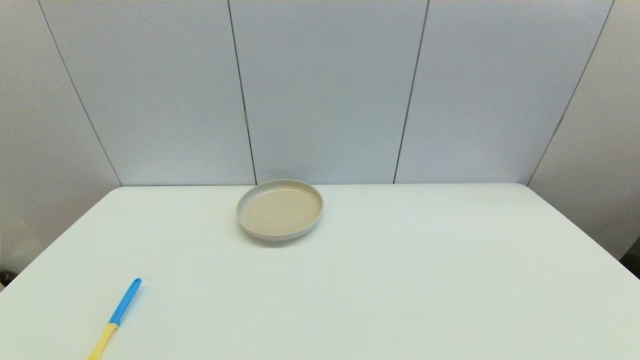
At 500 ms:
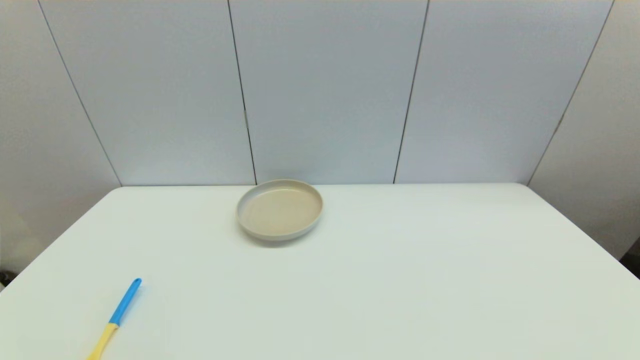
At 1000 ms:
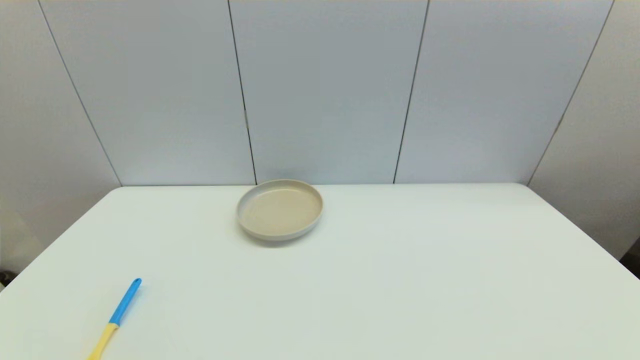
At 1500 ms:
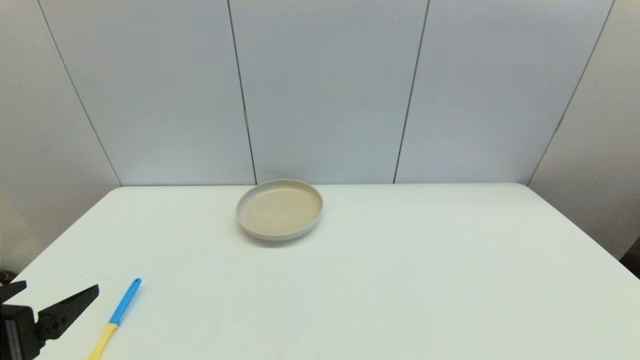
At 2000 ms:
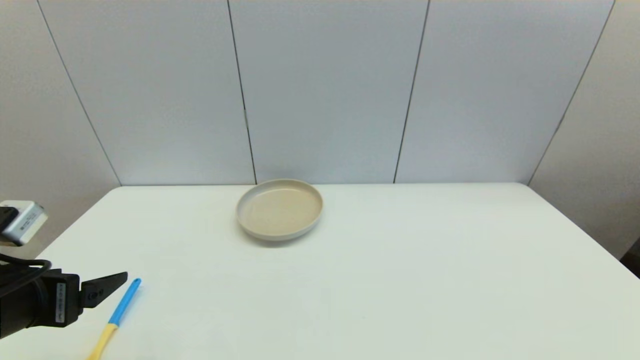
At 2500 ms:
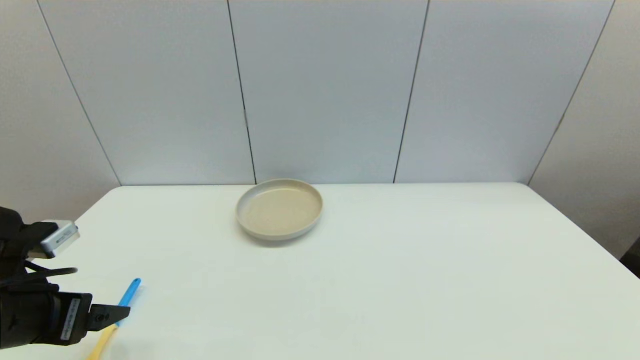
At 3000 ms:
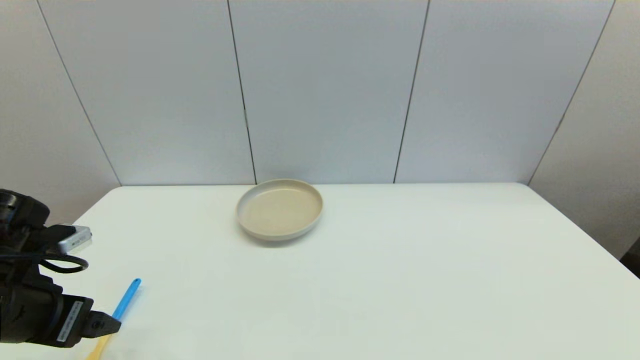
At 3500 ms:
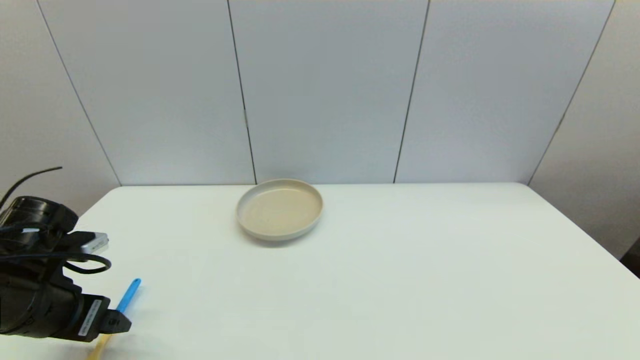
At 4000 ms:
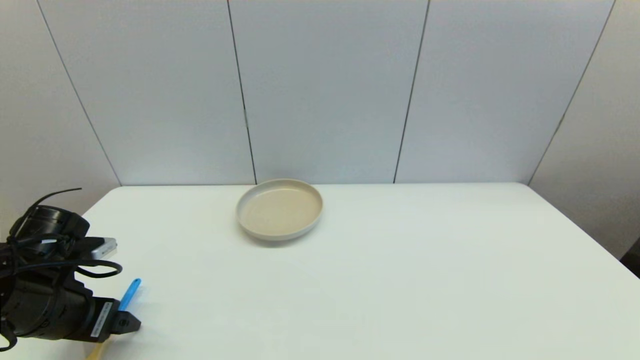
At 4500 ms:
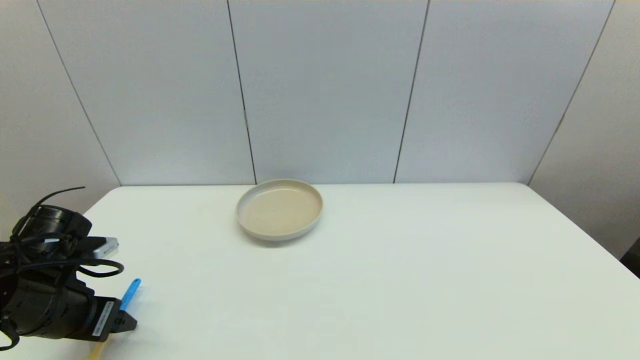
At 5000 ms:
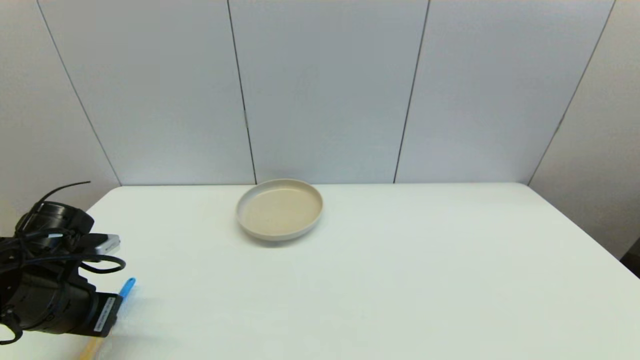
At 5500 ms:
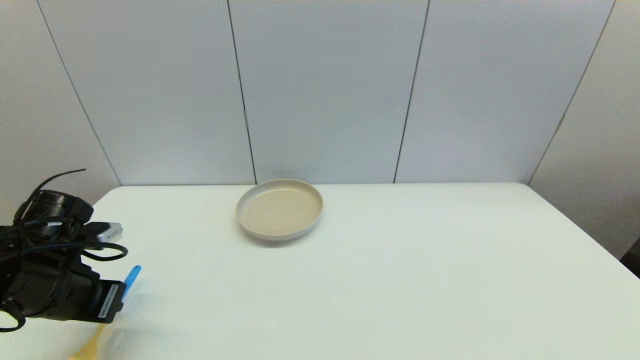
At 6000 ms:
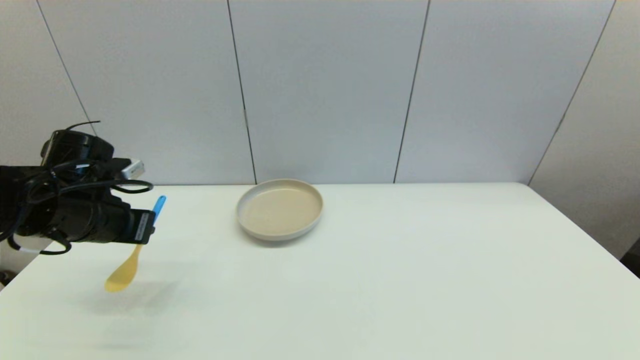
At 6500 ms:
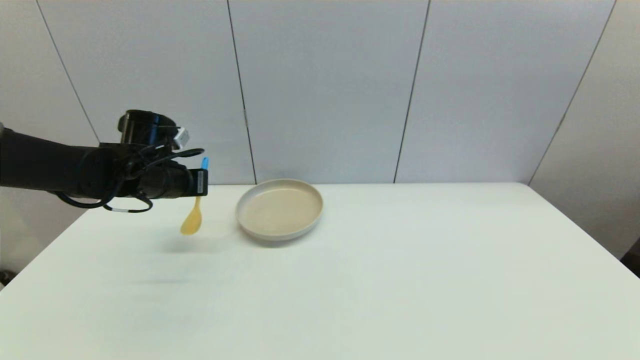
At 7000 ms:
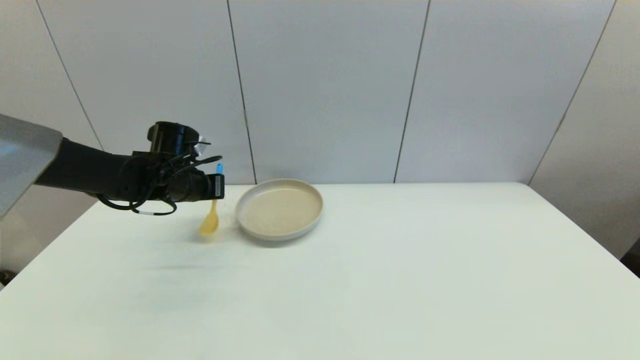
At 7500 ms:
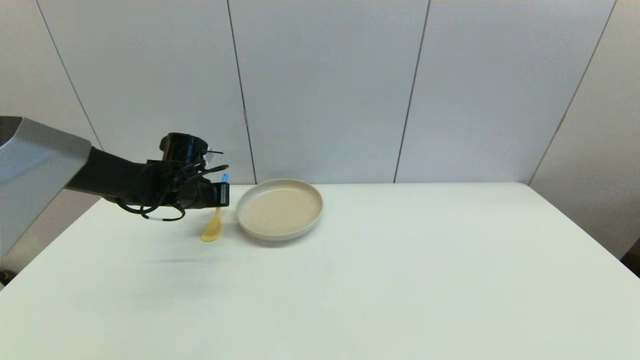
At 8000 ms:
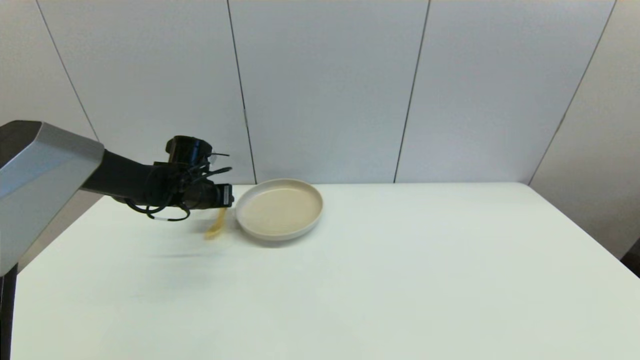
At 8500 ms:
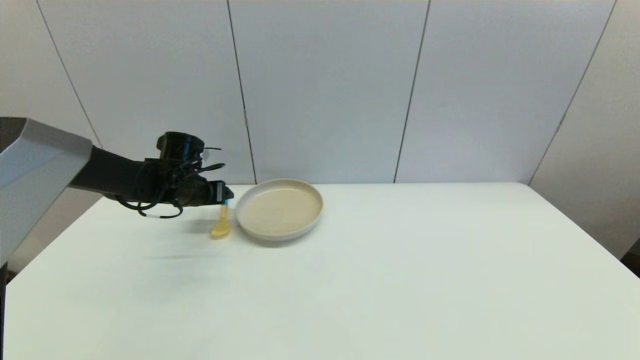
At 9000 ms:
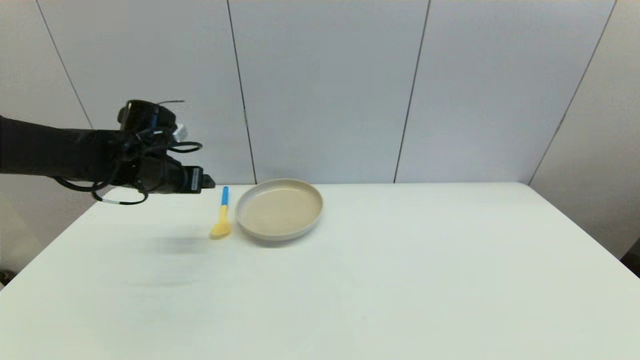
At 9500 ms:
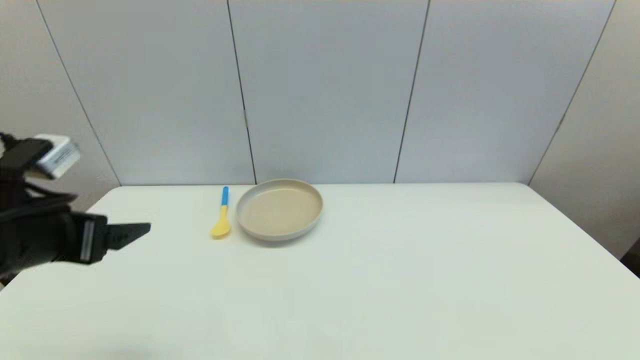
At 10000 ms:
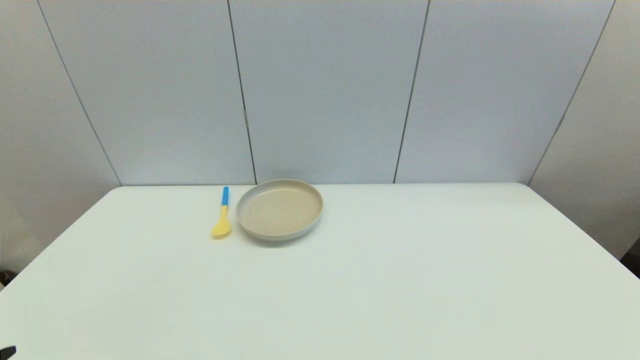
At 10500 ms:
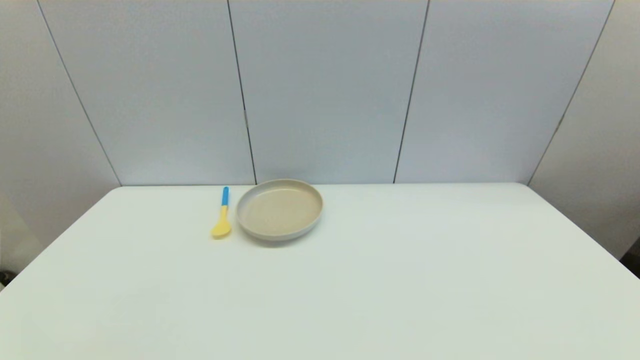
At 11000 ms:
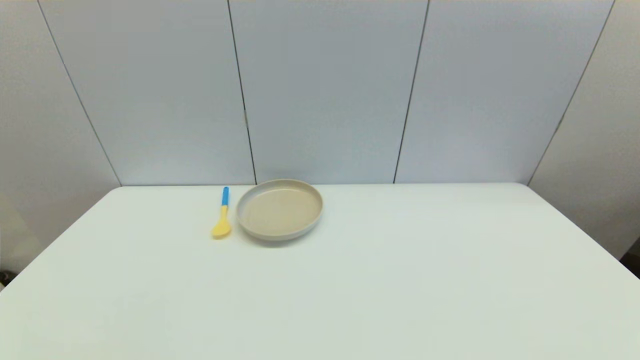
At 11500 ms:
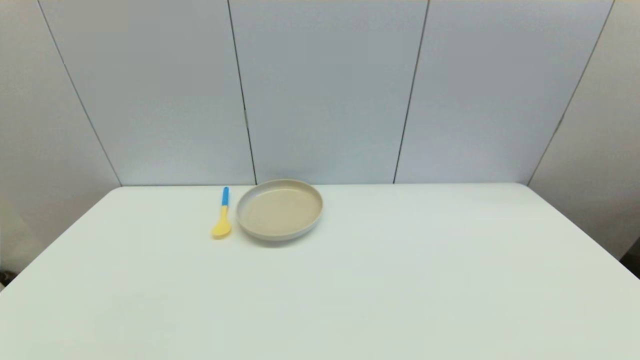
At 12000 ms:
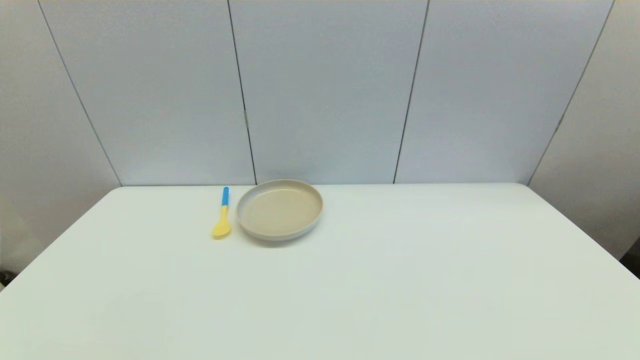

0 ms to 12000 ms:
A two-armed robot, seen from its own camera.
Step, 1500 ms to 5000 ms: Grasp the spoon with left gripper.
Step, 5500 ms to 8000 ms: Place the spoon on the table with left gripper.
0 ms to 2000 ms: The left gripper travels forward and upward by approximately 20 cm.
2000 ms to 4000 ms: The left gripper goes some 10 cm forward and downward.
4000 ms to 6000 ms: The left gripper moves forward and upward, approximately 10 cm, and closes its fingers.
6000 ms to 8000 ms: The left gripper moves forward, downward and to the right, roughly 15 cm, and opens its fingers.
8000 ms to 10000 ms: The left gripper goes approximately 40 cm backward, and opens up.
